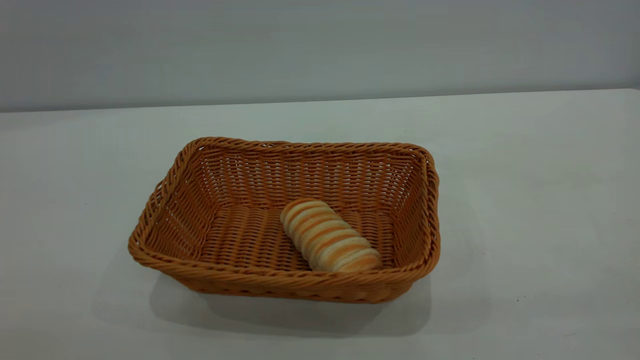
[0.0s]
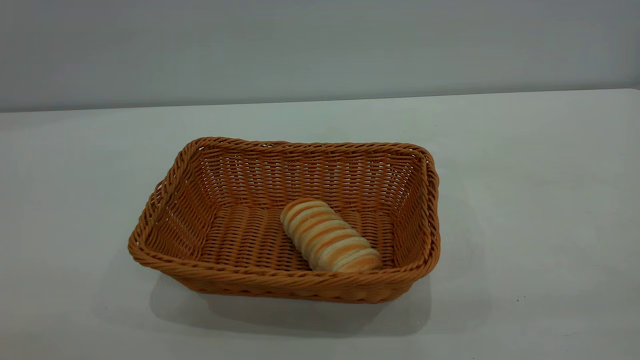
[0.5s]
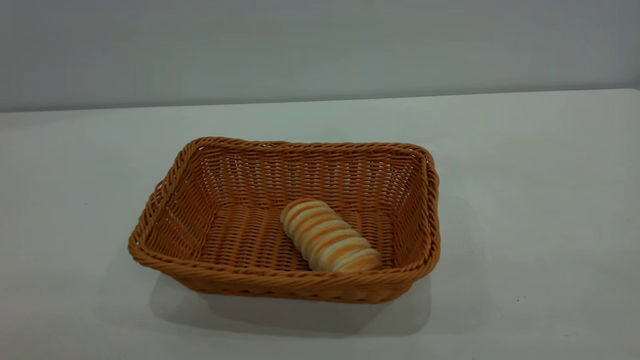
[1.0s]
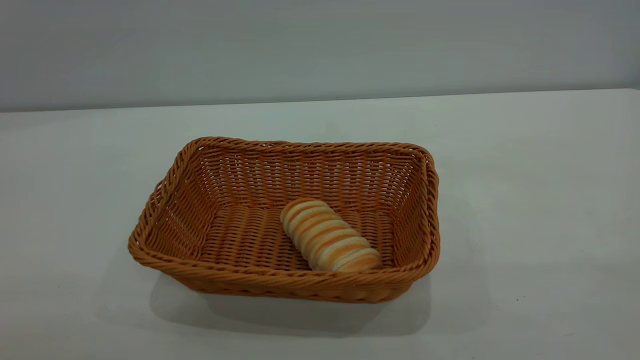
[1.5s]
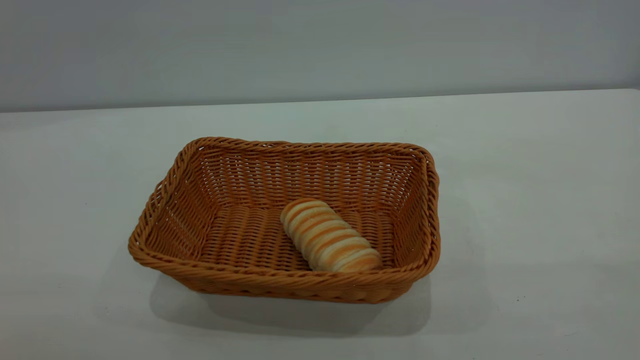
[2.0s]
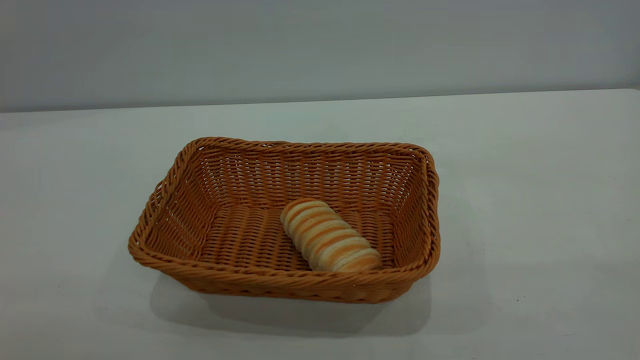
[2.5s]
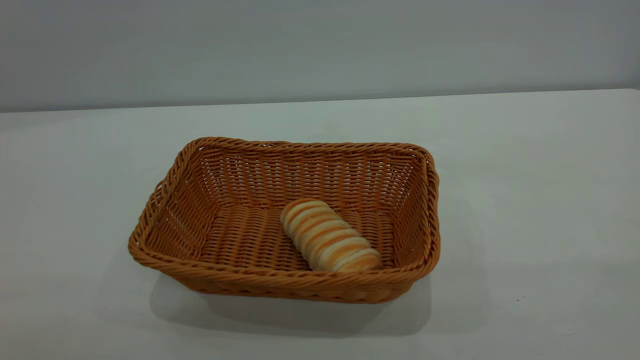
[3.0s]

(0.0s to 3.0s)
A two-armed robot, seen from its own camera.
Task of the whole recording: One hand grasps the yellow basket and places it in the middle of the table, while the other hand picks up the long bread and puts it into the yellow basket.
1.5s - 3.0s: Both grippers stay about where they are.

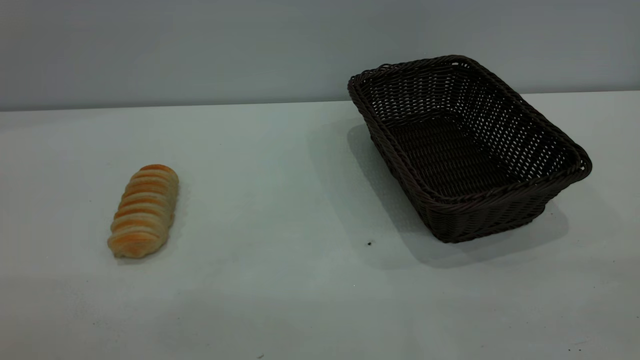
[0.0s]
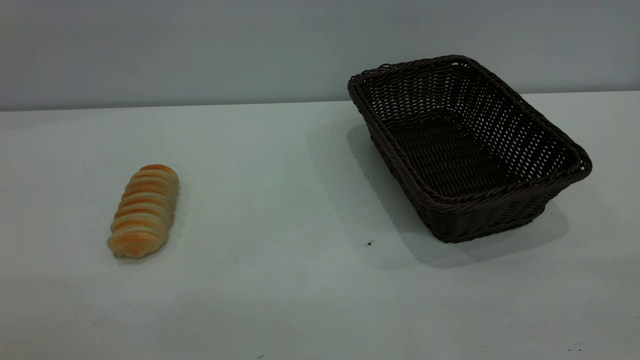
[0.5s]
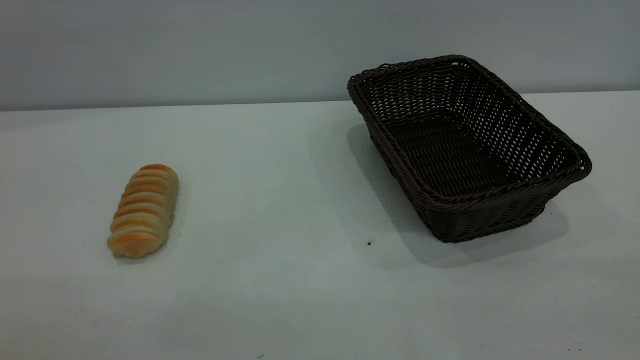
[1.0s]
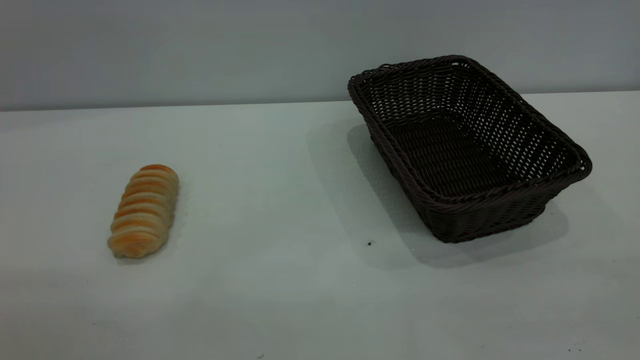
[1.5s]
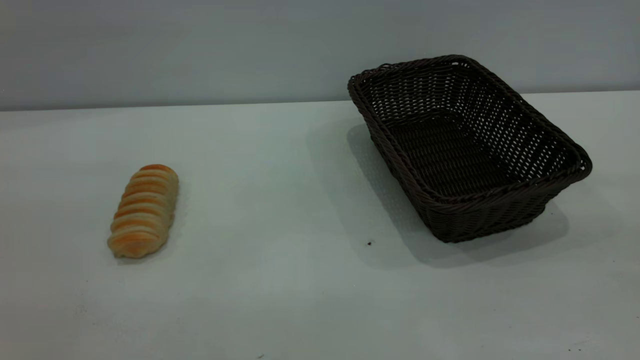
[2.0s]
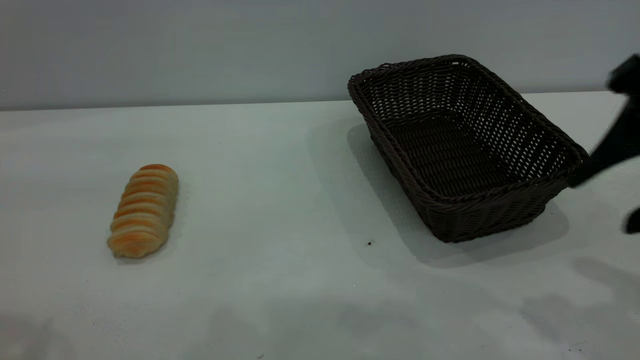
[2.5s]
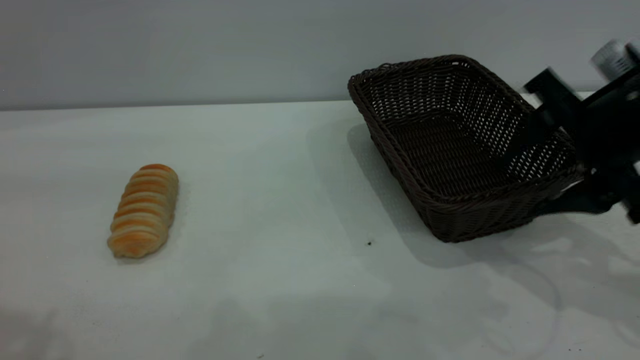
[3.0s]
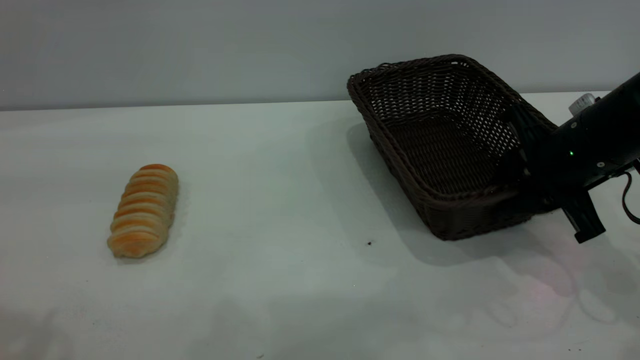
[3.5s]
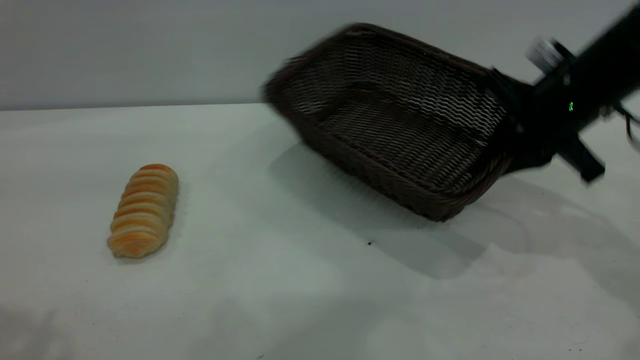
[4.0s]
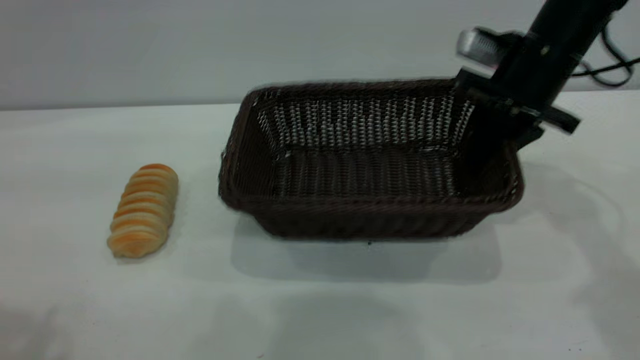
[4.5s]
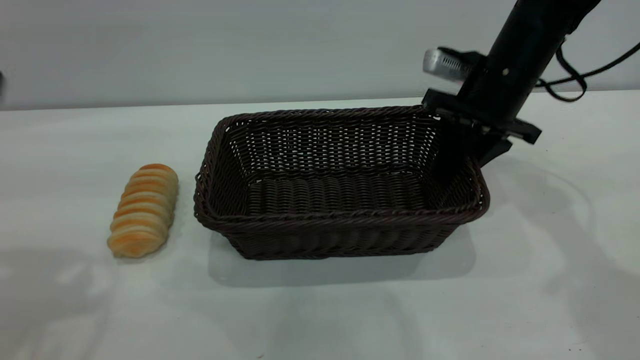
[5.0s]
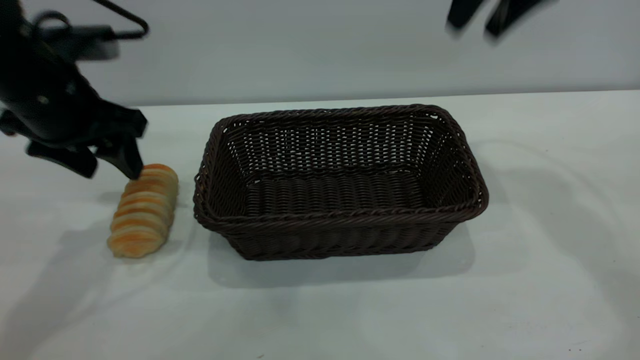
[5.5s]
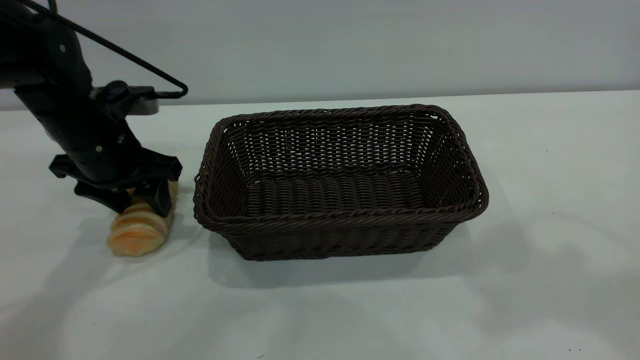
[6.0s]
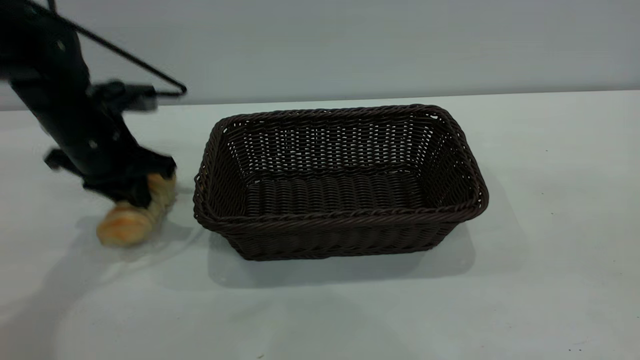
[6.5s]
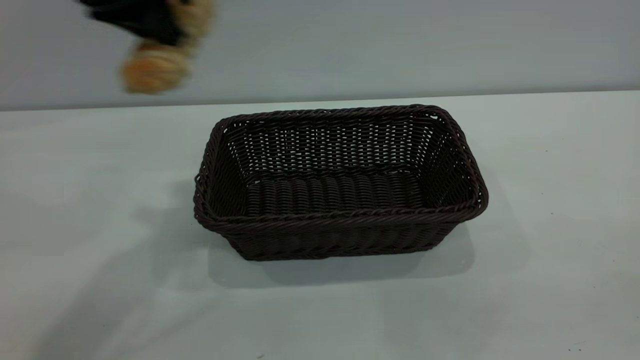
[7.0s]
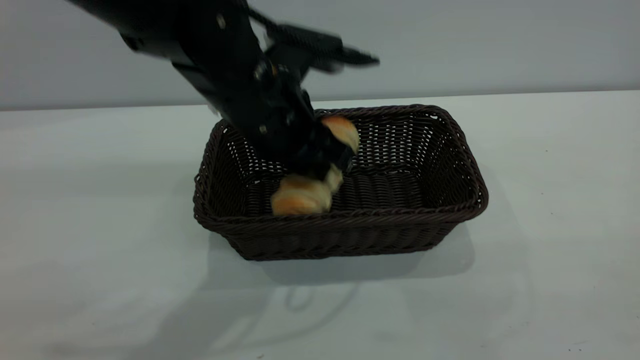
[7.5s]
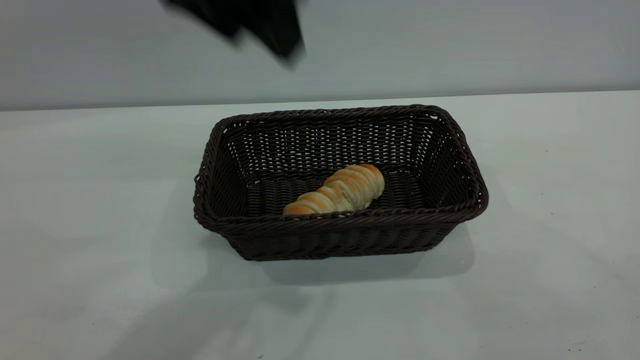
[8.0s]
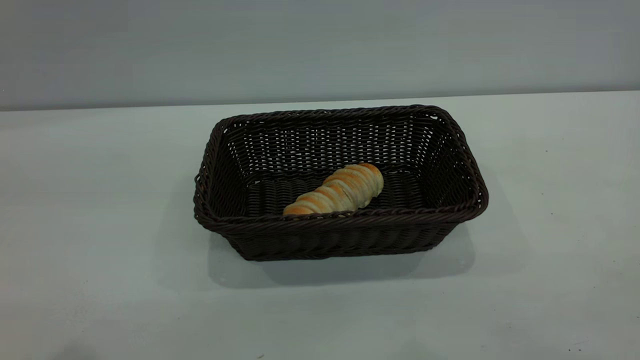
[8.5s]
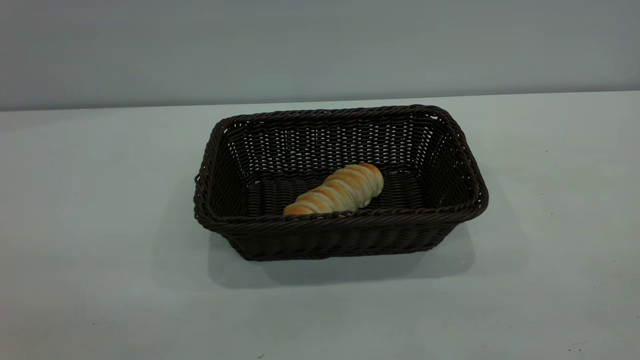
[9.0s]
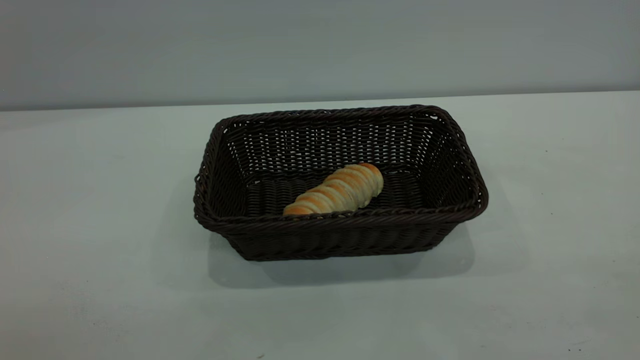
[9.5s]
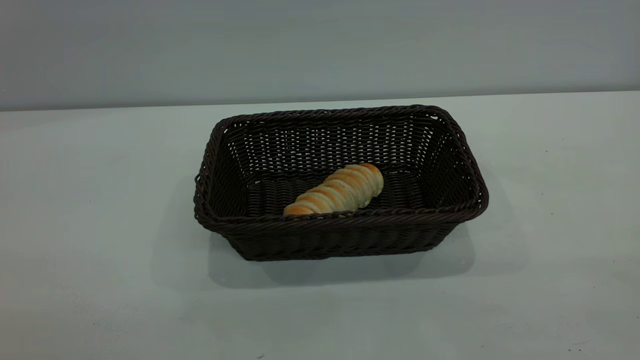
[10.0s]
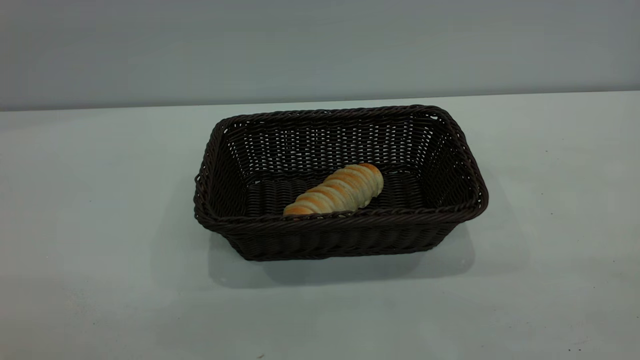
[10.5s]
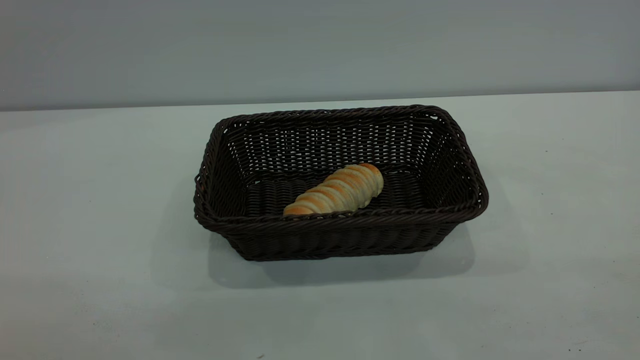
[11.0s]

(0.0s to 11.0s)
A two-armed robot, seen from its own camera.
Task of the whole recording: One hand grasps the black basket and places it in the middle of the table, while the other hand picks up the long bread and puts it into the black basket.
Step, 0.0s - 5.0s: Move the basket to the center of view.
Step, 7.0s - 7.5s: place the bread into the basket.
2.0s - 3.5s: The right gripper heads forward and downward, covering about 30 cm, and closes its fingers.
3.5s - 5.5s: The right gripper shifts about 25 cm upward, and opens its fingers; the left gripper is displaced downward and forward by approximately 25 cm.
5.5s - 7.5s: The right gripper shifts some 40 cm backward; the left gripper travels to the right by some 20 cm, and closes.
7.5s - 9.0s: The left gripper goes about 40 cm backward, to the left and upward, and opens its fingers.
